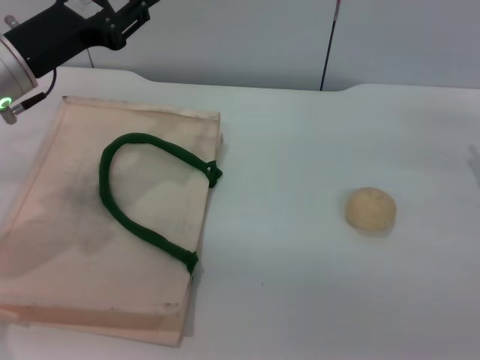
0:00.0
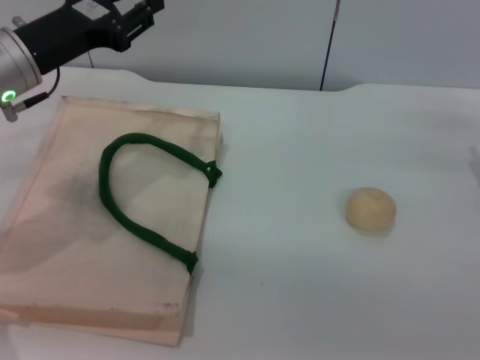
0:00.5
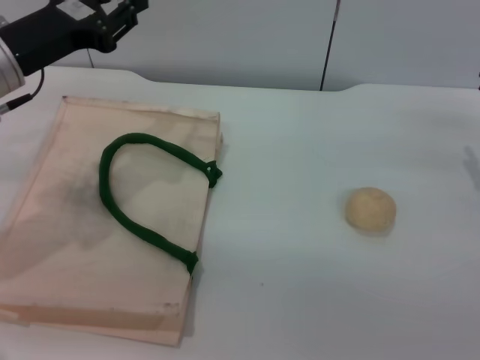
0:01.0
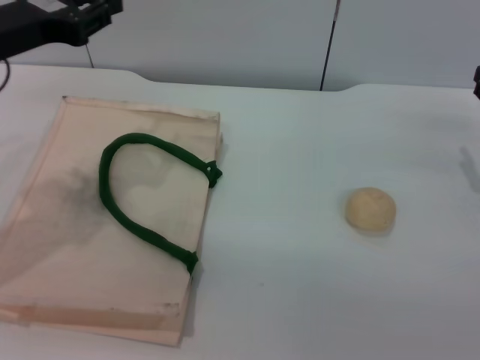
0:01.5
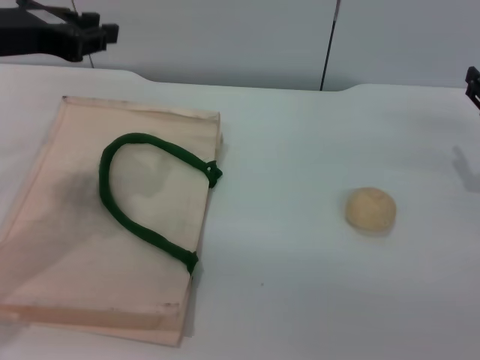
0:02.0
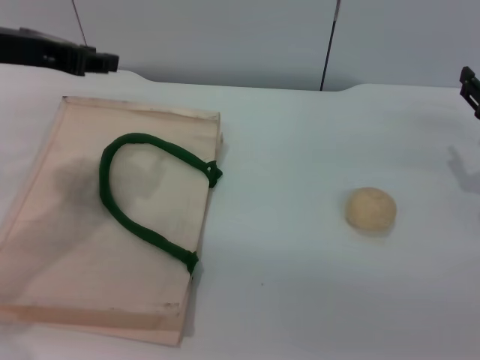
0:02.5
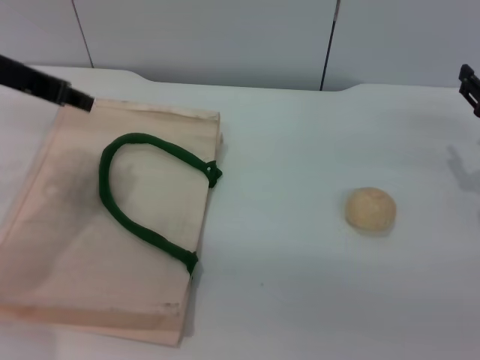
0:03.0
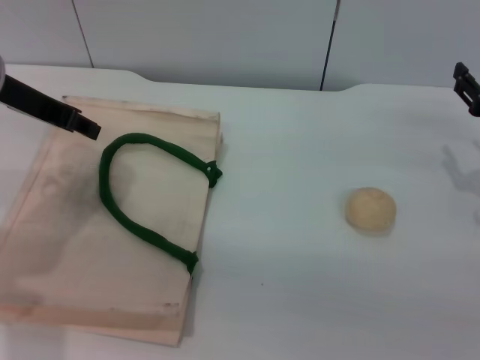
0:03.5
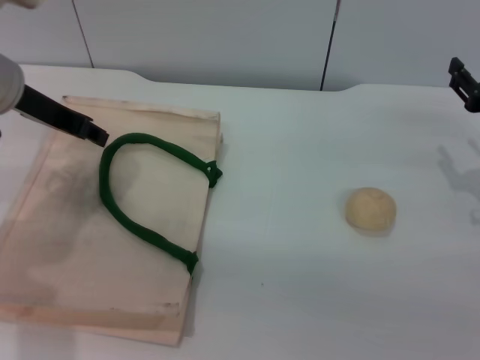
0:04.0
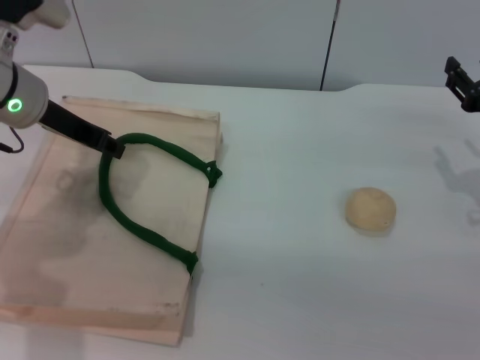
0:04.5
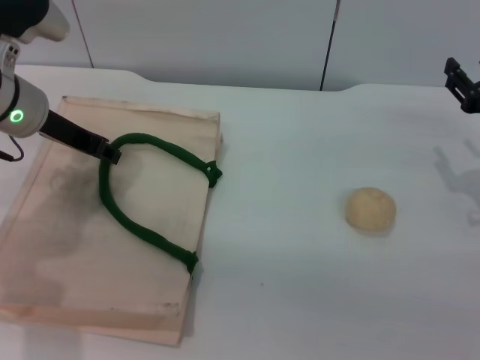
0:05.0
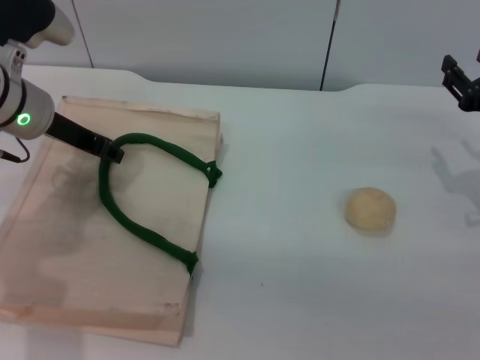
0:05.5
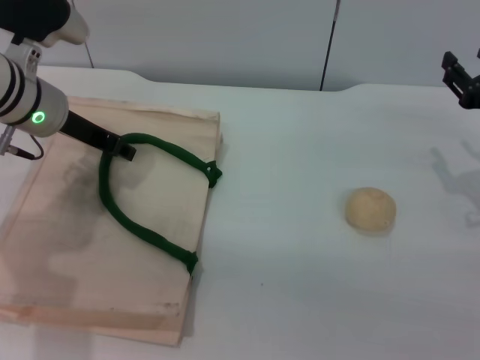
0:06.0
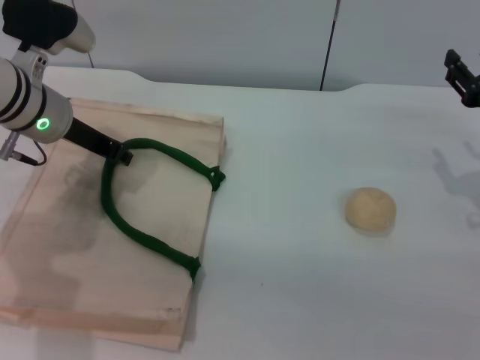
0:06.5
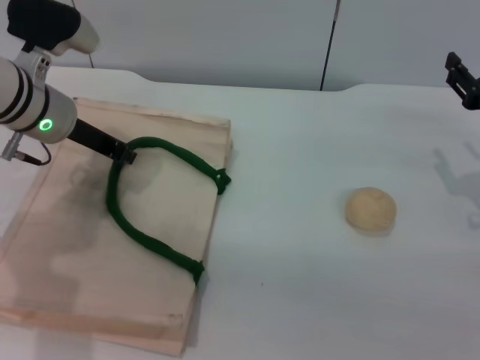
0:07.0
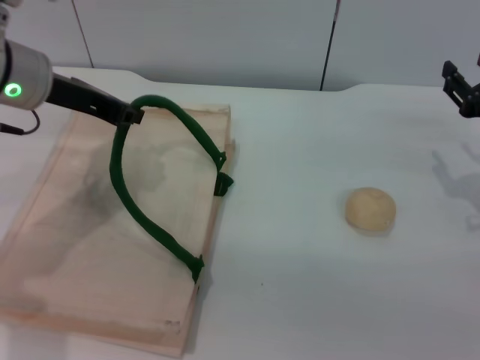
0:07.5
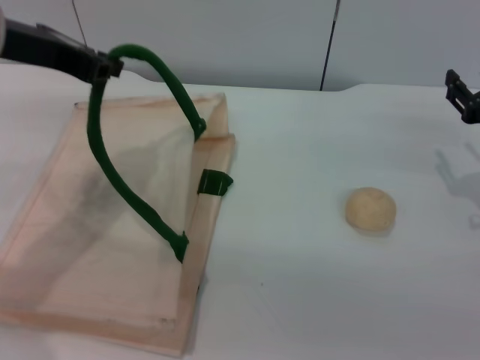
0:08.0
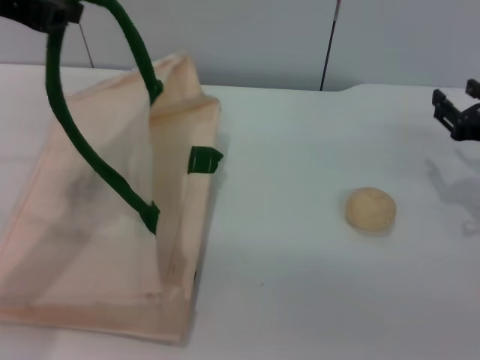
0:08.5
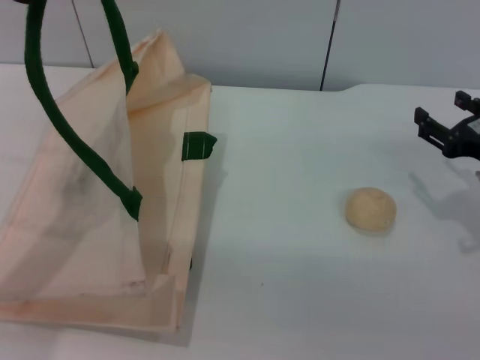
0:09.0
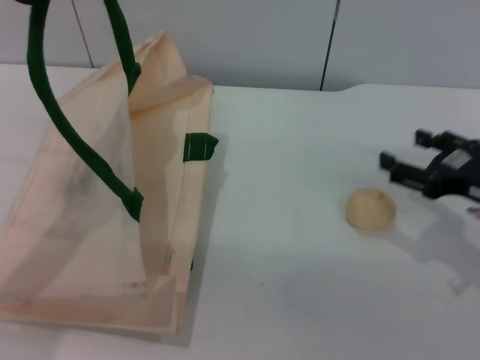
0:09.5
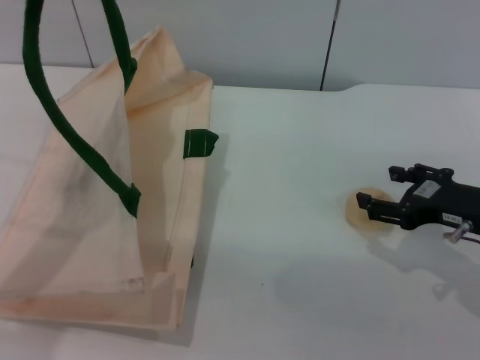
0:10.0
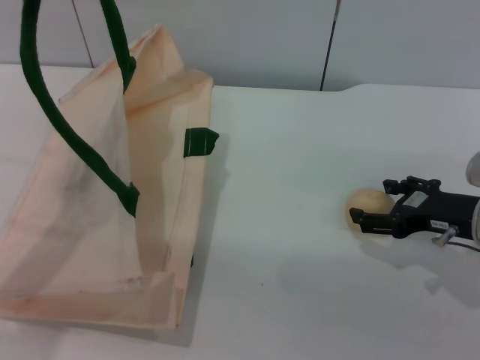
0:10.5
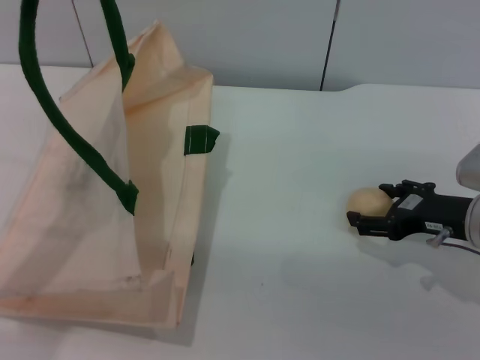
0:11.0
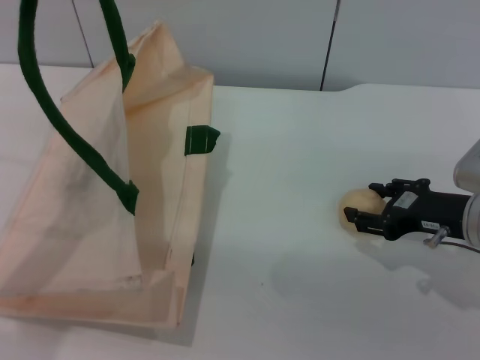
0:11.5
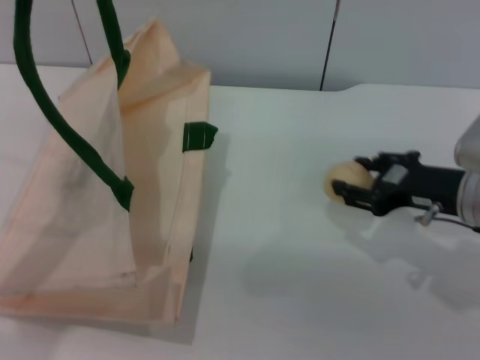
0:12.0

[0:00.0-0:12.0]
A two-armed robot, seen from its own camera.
Task of the whole recording: pick up the egg yolk pastry from the table and place it in the white handbag.
Step, 0:00.0 to 0:09.0: Lift the woven bag with the left gripper to open it.
Step, 0:09.5 to 0:12.0: Pick up the egg yolk pastry with the right gripper.
0:00.0 to 0:02.0: The left gripper heads upward, covering about 10 cm.
0:02.0 to 0:04.0: The left gripper shifts by approximately 5 cm, and opens its fingers.
0:04.0 to 0:06.0: The left gripper shifts by about 5 cm.
0:06.0 to 0:08.0: The left gripper travels upward and backward by roughly 15 cm, and closes up.
0:08.0 to 0:10.0: The right gripper ends up roughly 5 cm from where it was, and opens up. Meanwhile the left gripper is displaced upward by about 10 cm.
0:10.0 to 0:12.0: The right gripper closes.

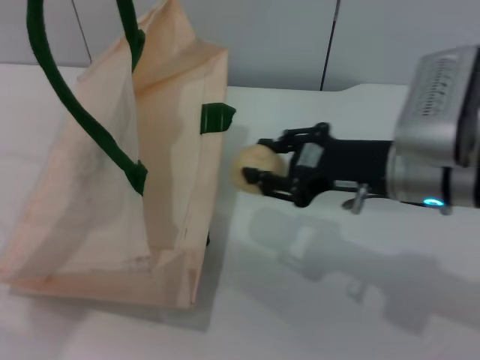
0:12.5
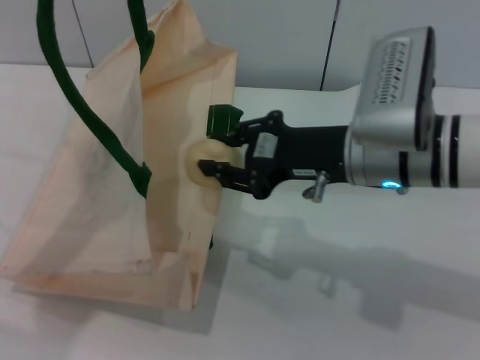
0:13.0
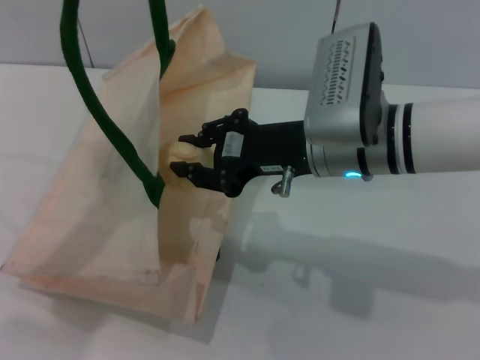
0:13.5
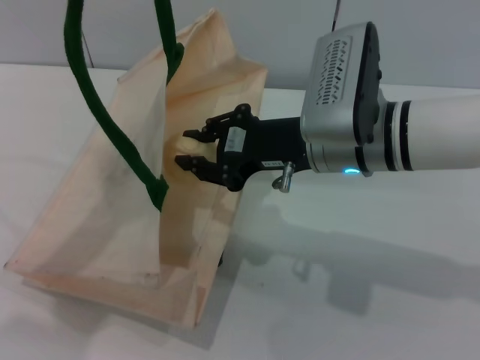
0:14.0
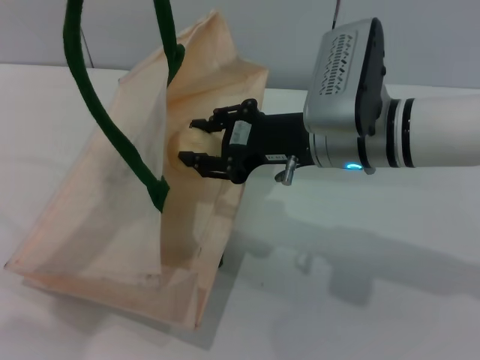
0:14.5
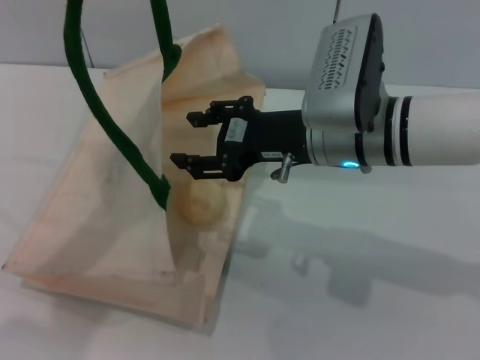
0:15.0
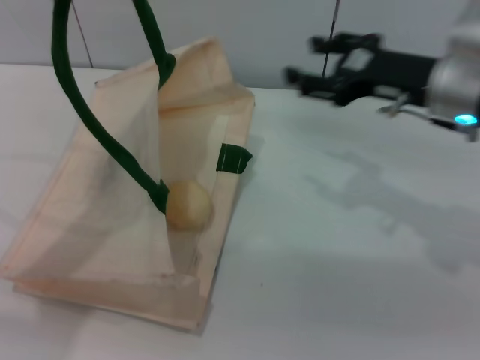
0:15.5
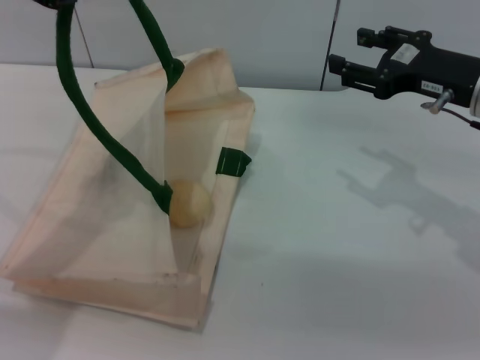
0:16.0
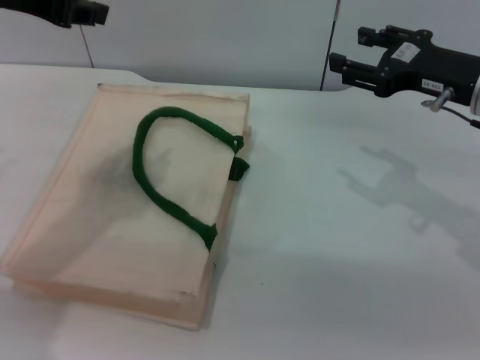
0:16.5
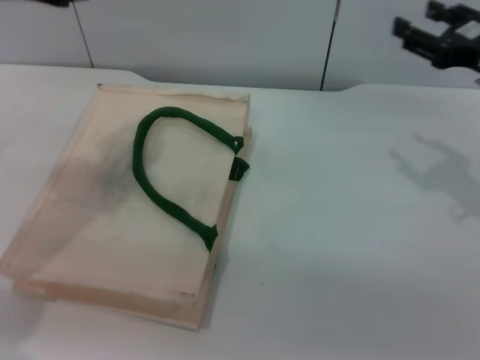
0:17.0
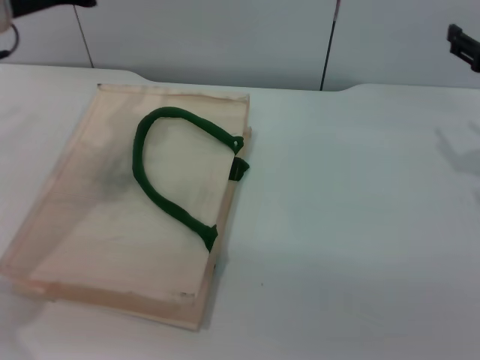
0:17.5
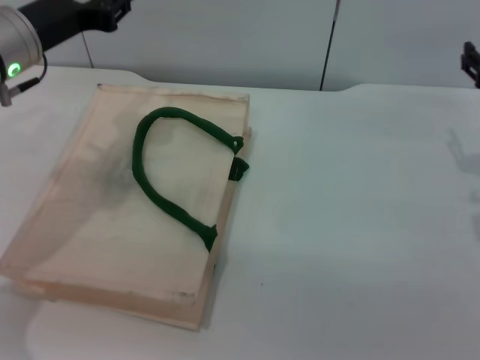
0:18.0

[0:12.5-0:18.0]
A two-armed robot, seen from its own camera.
Task of the whole recording: pick up the egg yolk pastry from the table and place it in the white handbag.
Step, 0:12.5 to 0:15.0: Place the egg yolk pastry into the woven bag with the right gripper.
Step, 0:15.5 to 0:16.5: Lower the woven bag with the left gripper to close it.
0:12.5 to 0:14.5: The right gripper moves to the left, some 5 cm.
0:14.5 to 0:16.0: The right gripper shifts approximately 15 cm to the right, and opens up.
0:16.0 to 0:18.0: The right gripper moves roughly 5 cm. The left gripper heads downward and forward, covering approximately 15 cm, and opens.

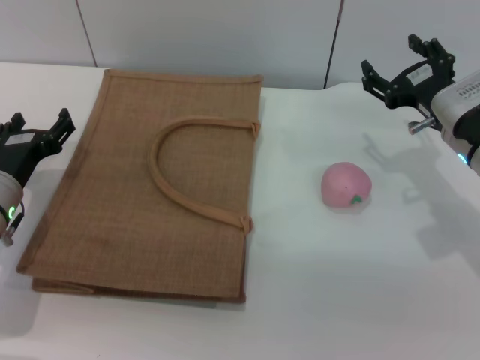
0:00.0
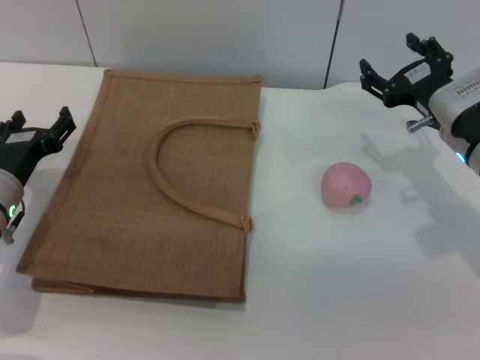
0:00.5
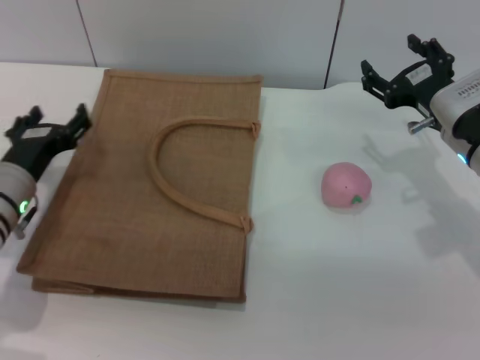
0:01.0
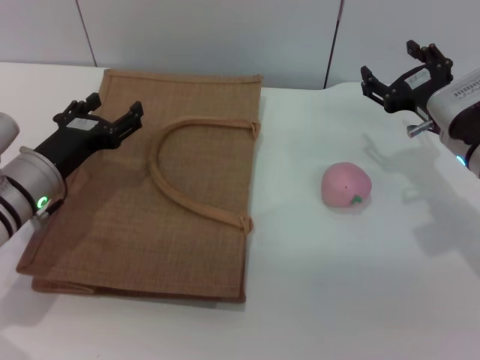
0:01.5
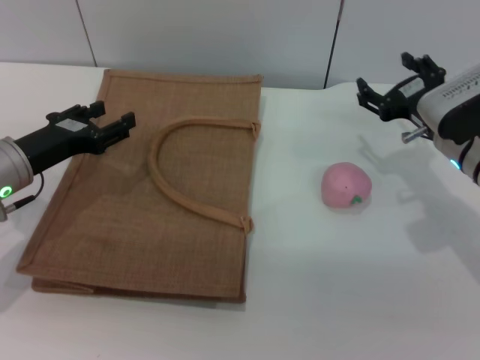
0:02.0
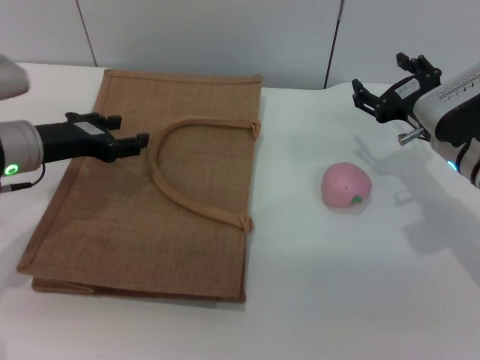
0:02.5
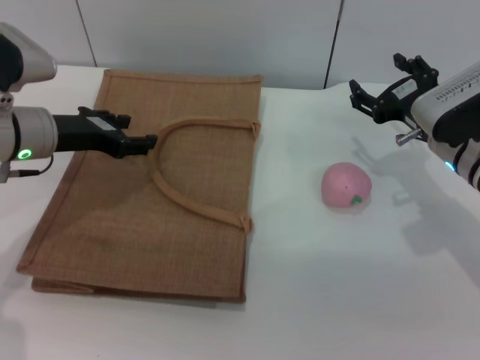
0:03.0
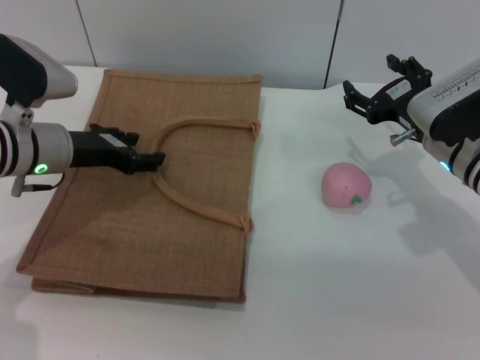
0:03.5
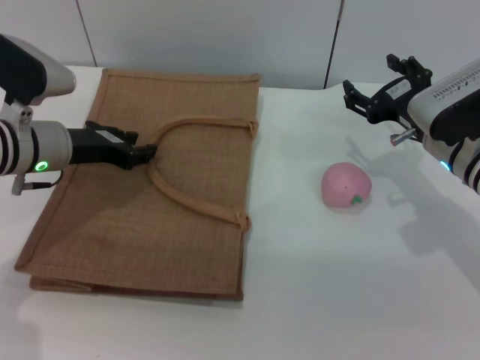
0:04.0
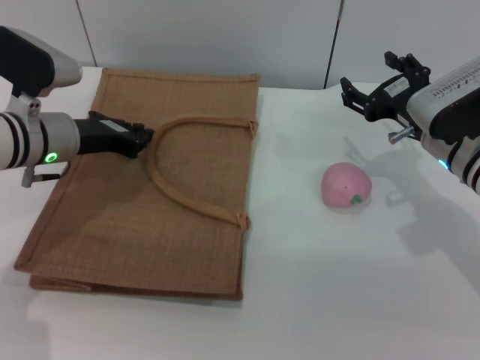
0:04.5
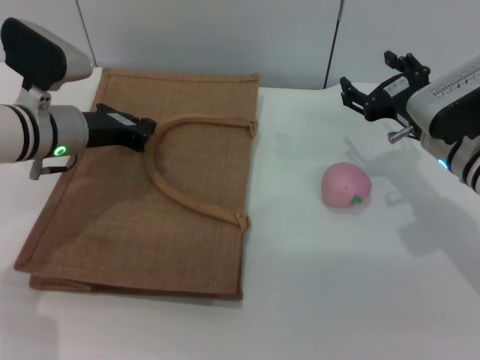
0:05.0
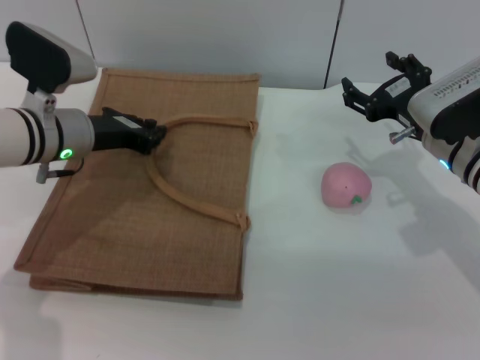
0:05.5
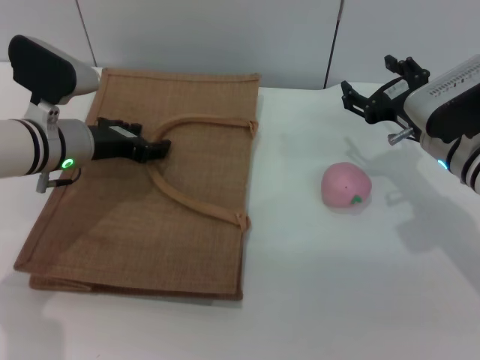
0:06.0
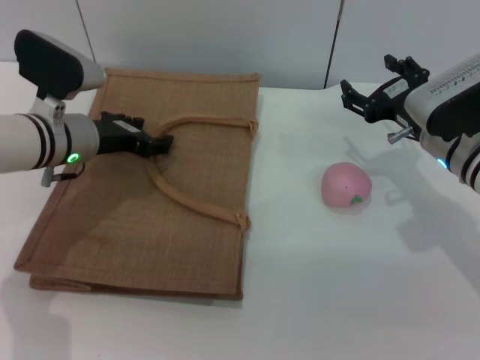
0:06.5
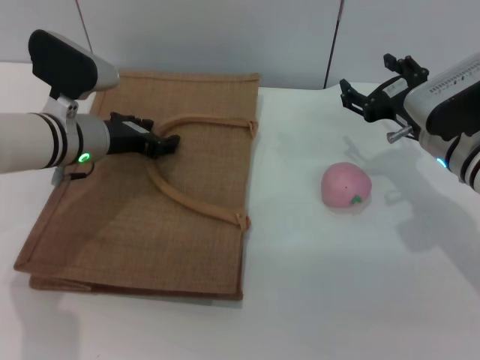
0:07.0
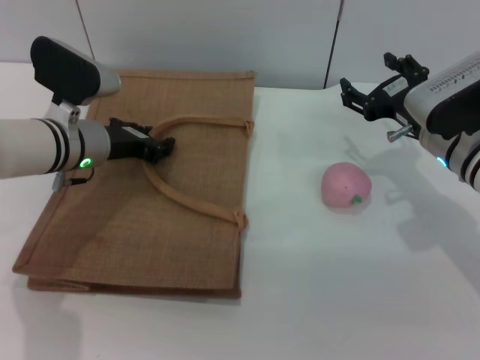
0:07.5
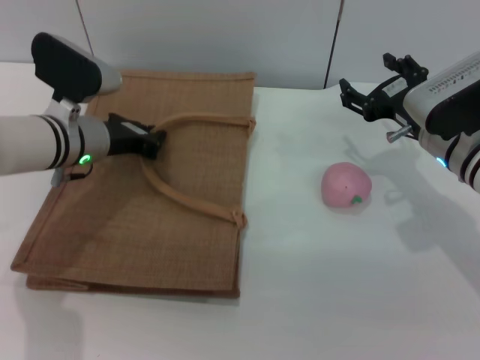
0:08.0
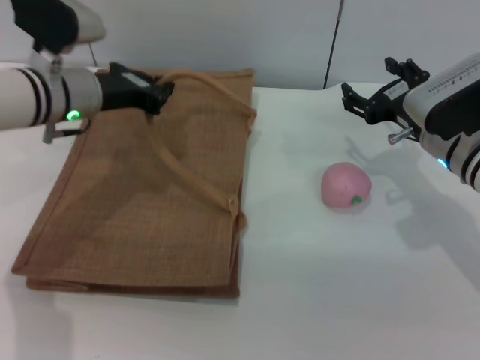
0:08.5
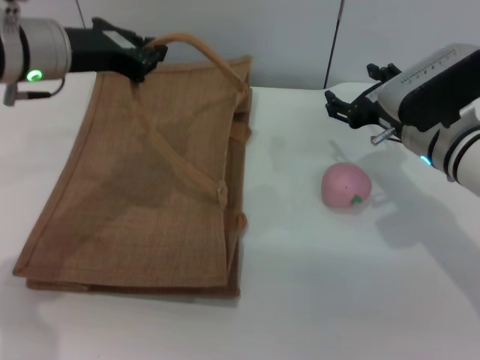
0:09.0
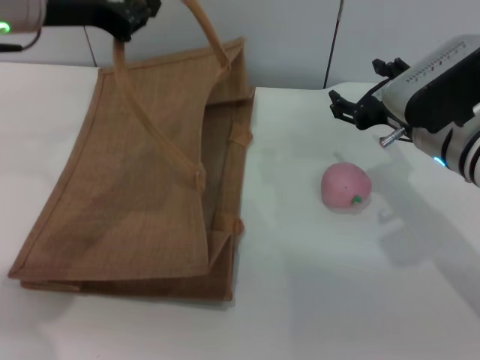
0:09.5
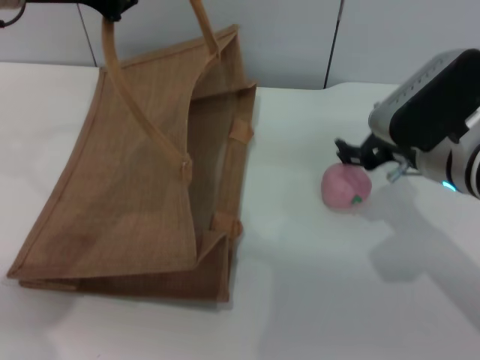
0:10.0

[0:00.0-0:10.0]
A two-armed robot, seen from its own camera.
Task of the whole recording: pick up the peach from the table and place it in the brown handbag.
Step, 0:00.0 to 0:09.0: Lift the woven bag with the left gripper to open it.
0:02.0 to 0:04.0: The left gripper ends up roughly 5 cm from where it was.
0:04.0 to 0:06.0: The left gripper closes, then reopens.
0:06.0 to 0:08.0: The left gripper closes its fingers.
0:08.0 to 0:10.0: The left gripper travels upward by about 20 cm; the right gripper changes place by roughly 5 cm.
